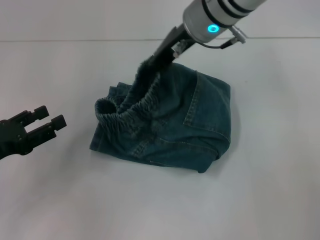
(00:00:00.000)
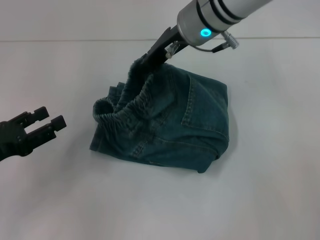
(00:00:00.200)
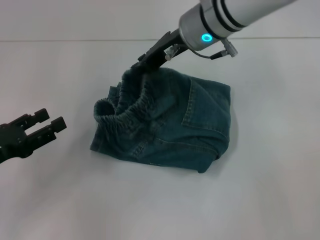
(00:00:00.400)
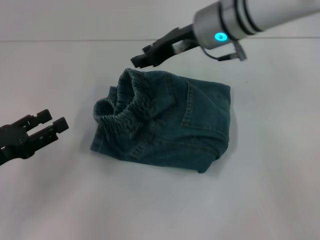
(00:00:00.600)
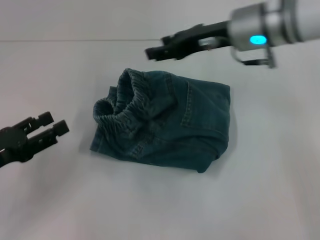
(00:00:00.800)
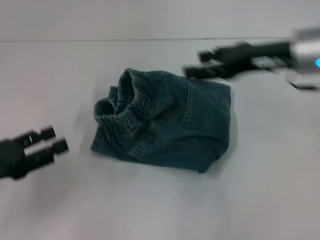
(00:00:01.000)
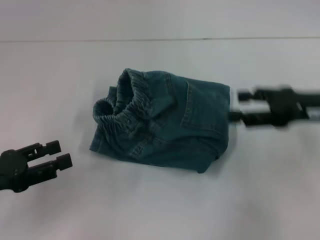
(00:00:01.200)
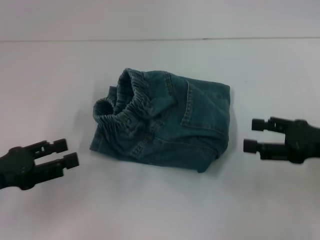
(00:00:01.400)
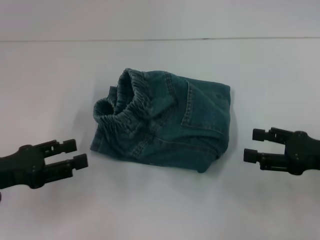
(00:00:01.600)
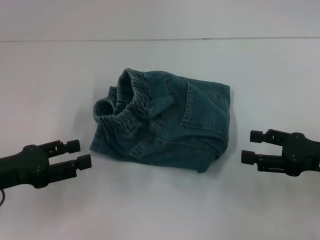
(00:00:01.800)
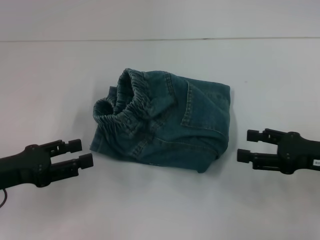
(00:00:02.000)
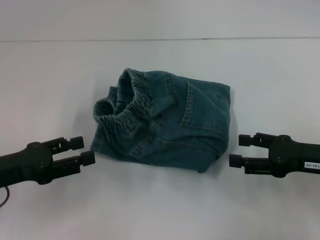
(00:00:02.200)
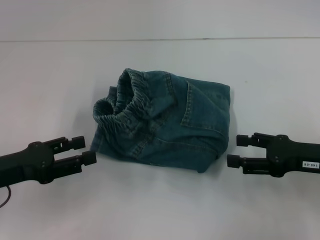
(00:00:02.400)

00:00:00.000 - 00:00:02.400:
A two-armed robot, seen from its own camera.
00:00:00.000 - 00:00:01.200: The right gripper travels to the right and backward by approximately 25 cm, and opens up.
00:00:01.200 - 00:00:02.400: The right gripper is displaced downward by roughly 5 cm.
